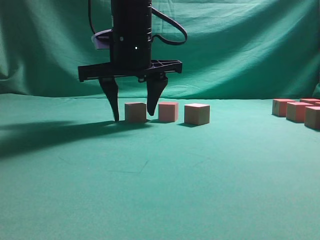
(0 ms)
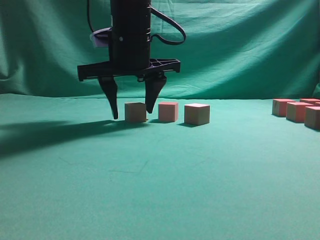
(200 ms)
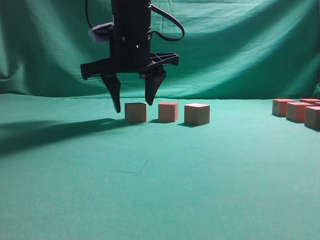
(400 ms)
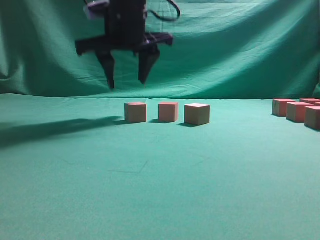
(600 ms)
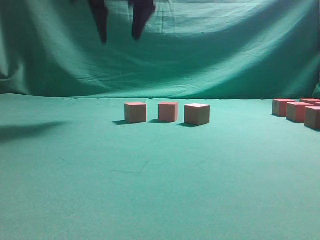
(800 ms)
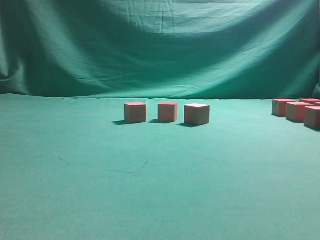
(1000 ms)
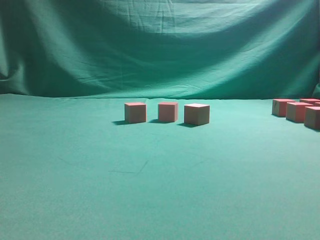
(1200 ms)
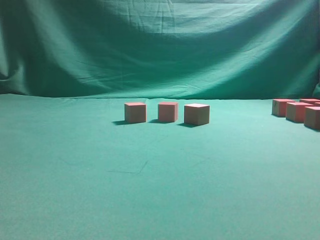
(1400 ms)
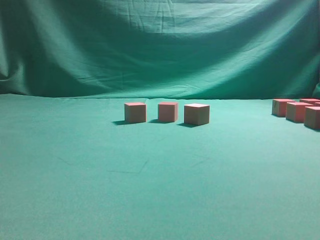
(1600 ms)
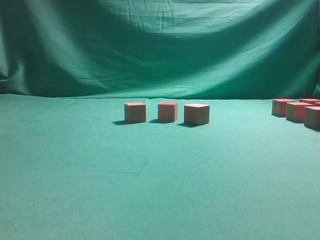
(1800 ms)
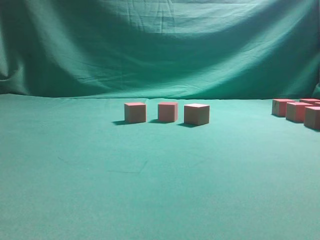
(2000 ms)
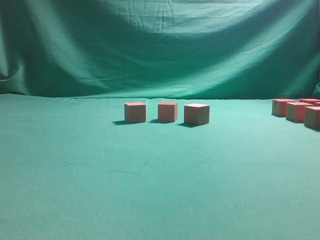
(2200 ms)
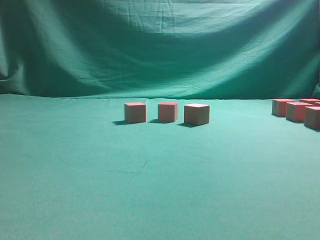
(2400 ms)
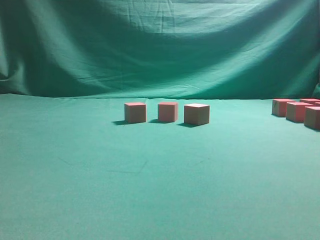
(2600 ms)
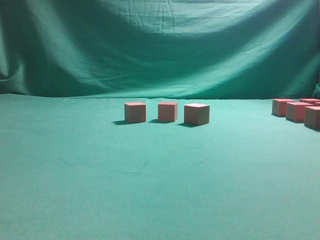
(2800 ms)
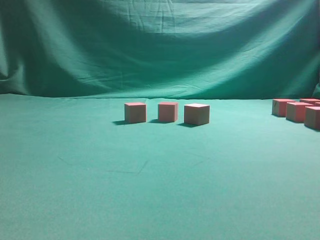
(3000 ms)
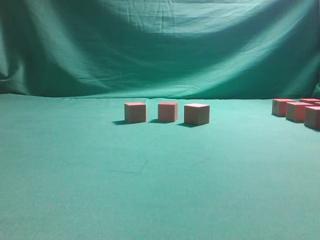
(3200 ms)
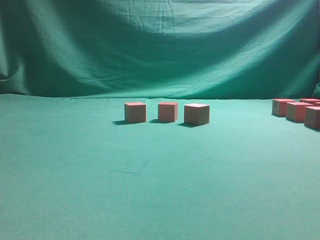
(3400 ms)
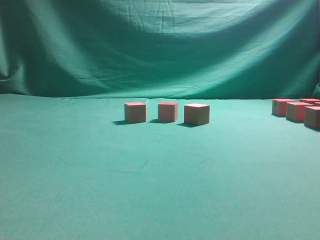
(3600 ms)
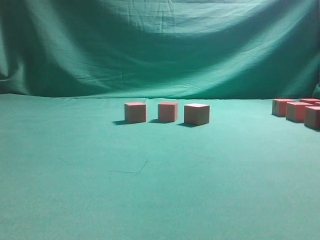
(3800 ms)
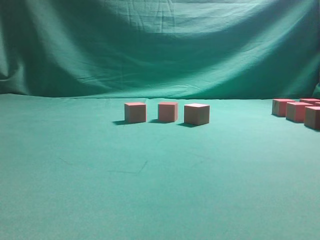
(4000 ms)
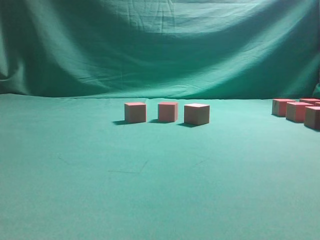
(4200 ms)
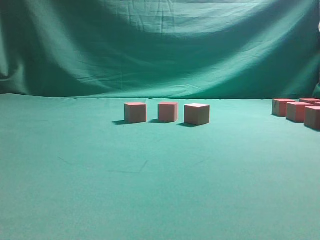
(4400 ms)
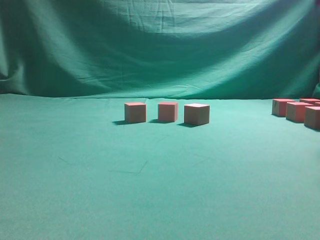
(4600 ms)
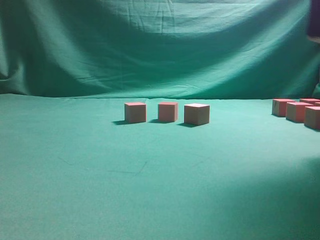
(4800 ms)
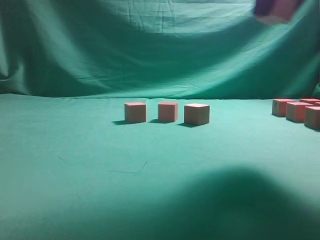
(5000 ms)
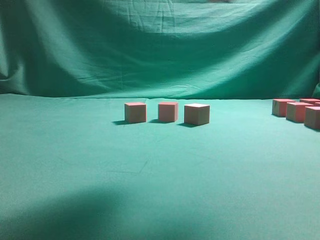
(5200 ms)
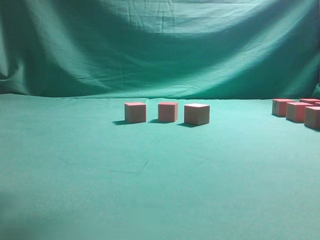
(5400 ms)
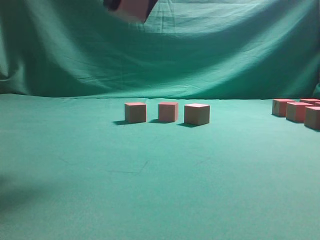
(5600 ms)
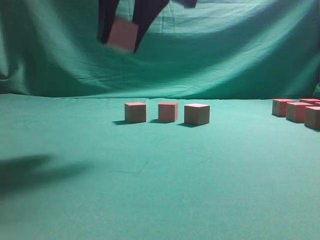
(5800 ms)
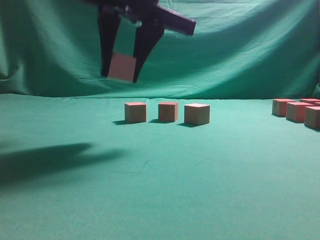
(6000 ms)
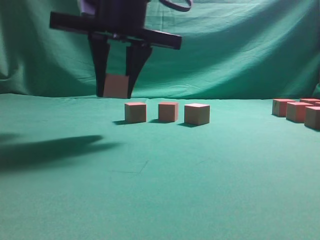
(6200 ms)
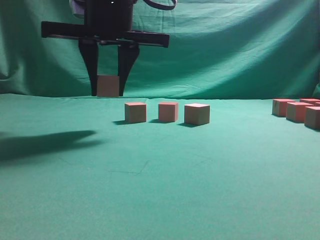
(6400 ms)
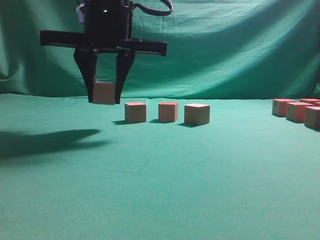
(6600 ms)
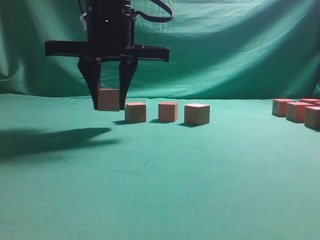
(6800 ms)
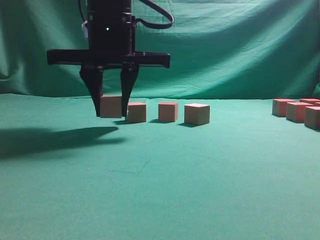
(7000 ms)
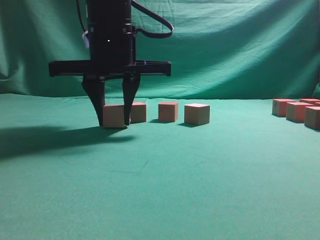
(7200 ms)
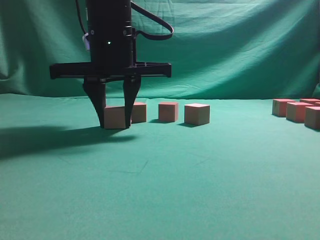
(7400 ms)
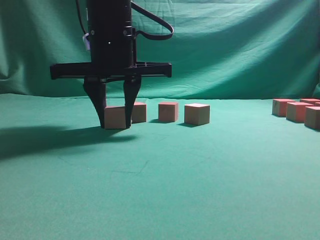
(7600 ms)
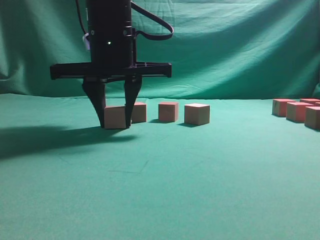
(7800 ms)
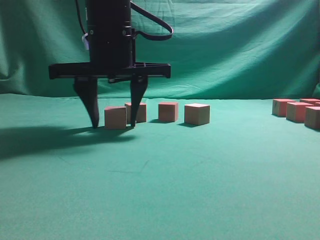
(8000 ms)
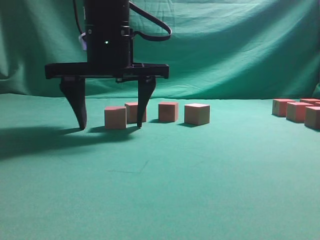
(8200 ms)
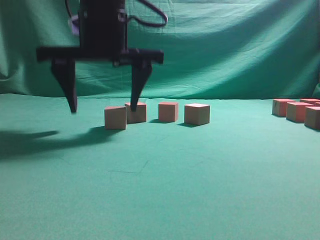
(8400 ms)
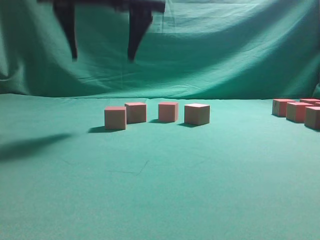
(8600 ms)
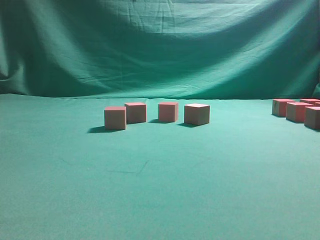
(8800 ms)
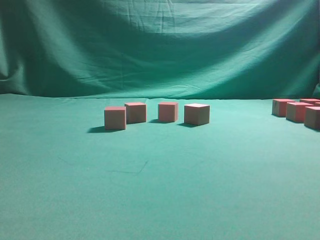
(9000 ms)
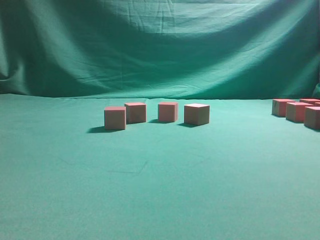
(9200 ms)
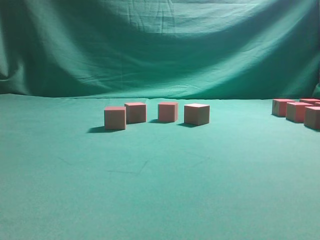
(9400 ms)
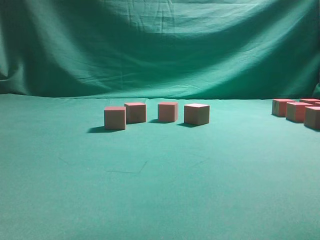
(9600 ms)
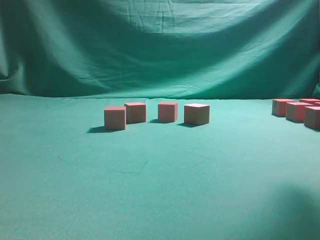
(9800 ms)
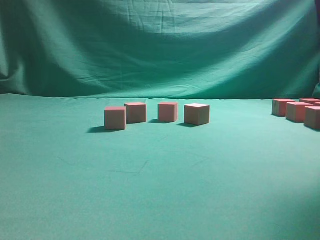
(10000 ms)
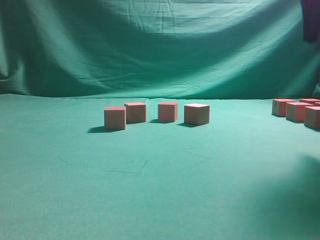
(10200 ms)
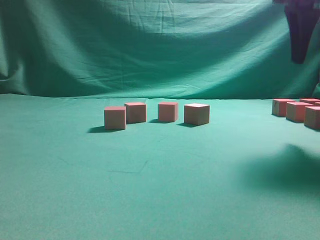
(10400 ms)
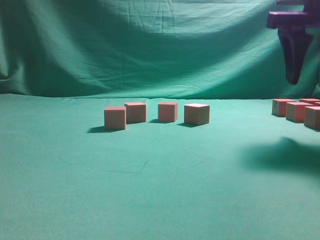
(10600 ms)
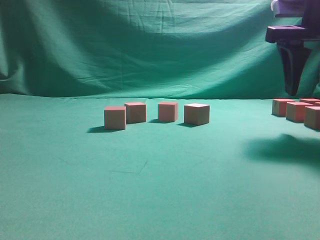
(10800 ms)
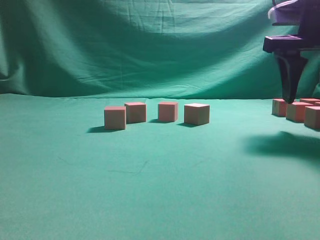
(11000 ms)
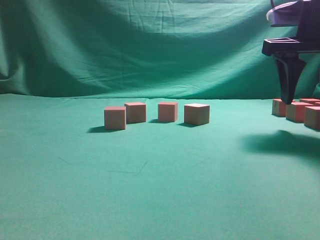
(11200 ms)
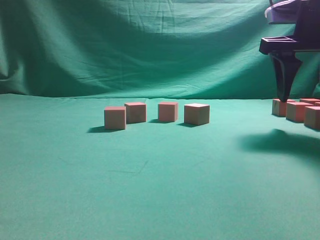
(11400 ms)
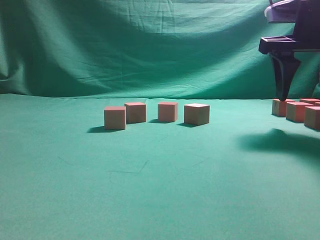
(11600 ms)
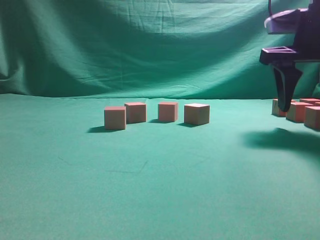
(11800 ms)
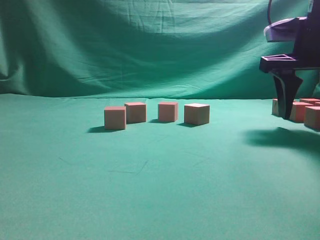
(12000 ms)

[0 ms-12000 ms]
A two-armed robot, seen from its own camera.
Task of the whole recording: pick up the multiple cubes in two columns one by one and place them in another position on the table.
Step, 4600 ms to 8600 ms: Place the block at the correct position to assemble the letter S.
0 ms to 1600 ms: The right gripper travels upward, to the right and backward by roughly 40 cm.
4400 ms to 6000 ms: The right gripper shifts about 30 cm to the left.
6000 ms to 7600 ms: The right gripper goes some 5 cm downward.
7600 ms to 9000 ms: The right gripper moves upward, approximately 25 cm, and opens up.
9000 ms to 10400 ms: The right gripper heads to the right and downward, covering roughly 30 cm.
10400 ms to 12000 ms: The right gripper goes about 10 cm downward.

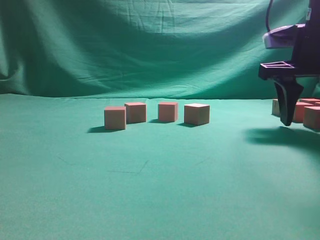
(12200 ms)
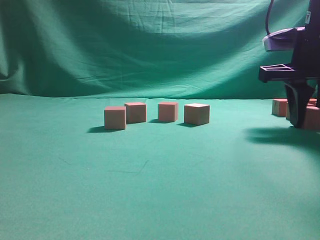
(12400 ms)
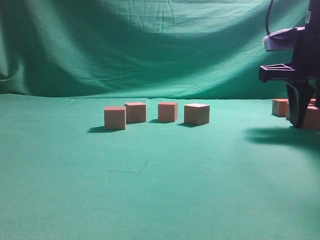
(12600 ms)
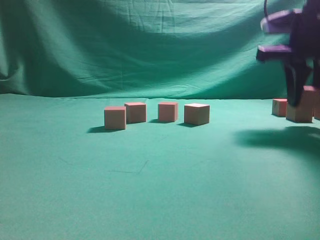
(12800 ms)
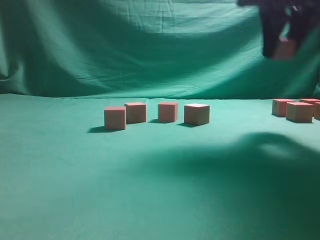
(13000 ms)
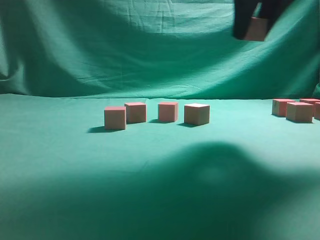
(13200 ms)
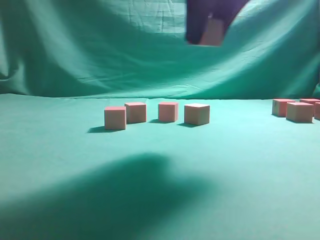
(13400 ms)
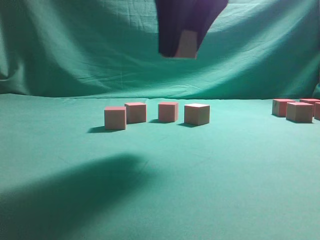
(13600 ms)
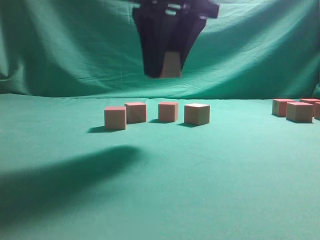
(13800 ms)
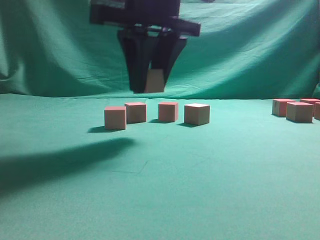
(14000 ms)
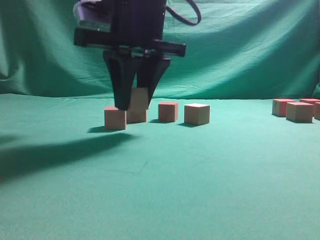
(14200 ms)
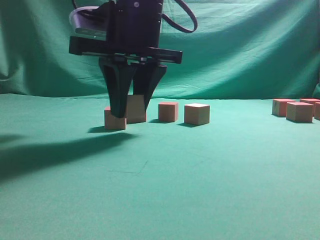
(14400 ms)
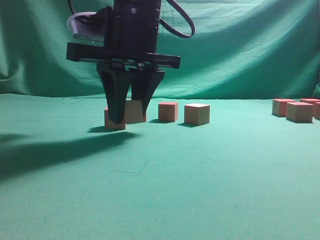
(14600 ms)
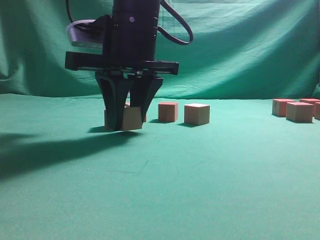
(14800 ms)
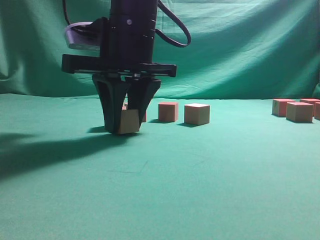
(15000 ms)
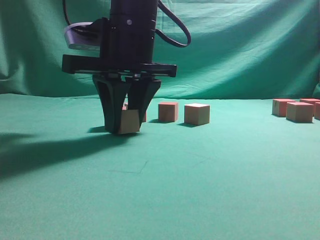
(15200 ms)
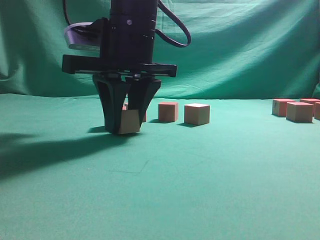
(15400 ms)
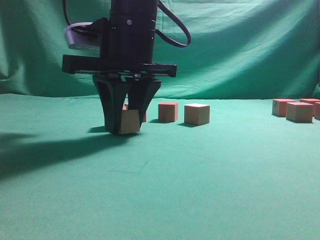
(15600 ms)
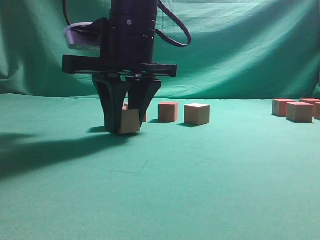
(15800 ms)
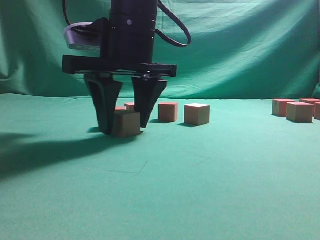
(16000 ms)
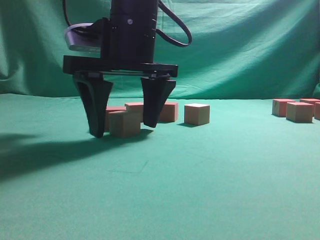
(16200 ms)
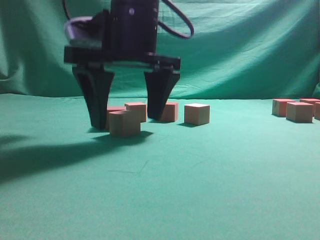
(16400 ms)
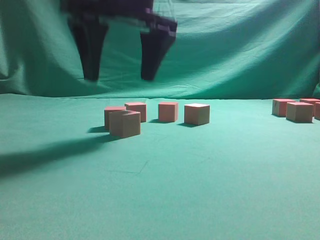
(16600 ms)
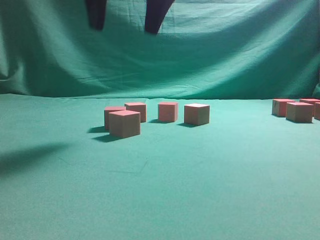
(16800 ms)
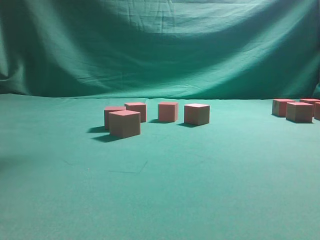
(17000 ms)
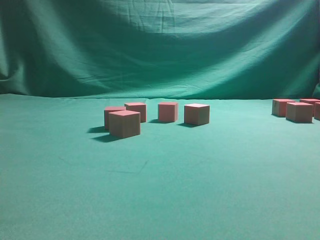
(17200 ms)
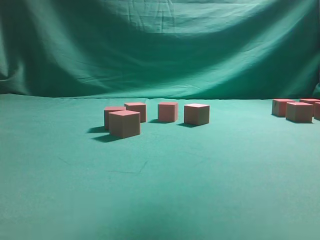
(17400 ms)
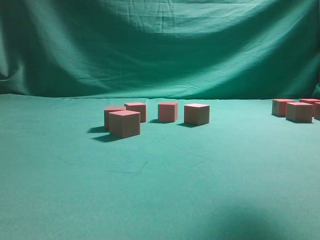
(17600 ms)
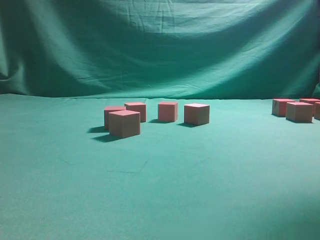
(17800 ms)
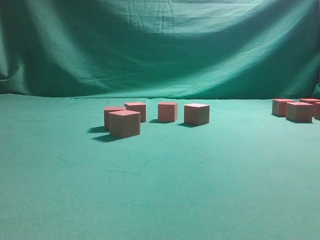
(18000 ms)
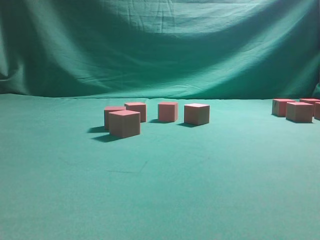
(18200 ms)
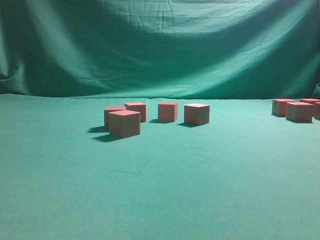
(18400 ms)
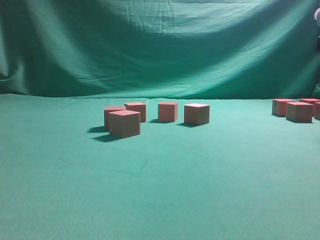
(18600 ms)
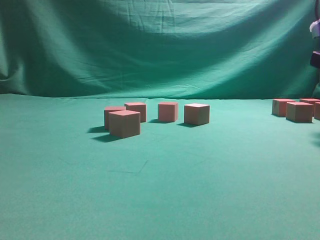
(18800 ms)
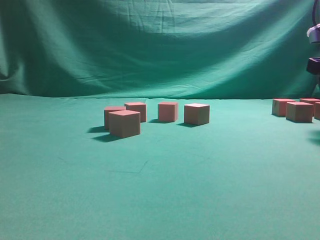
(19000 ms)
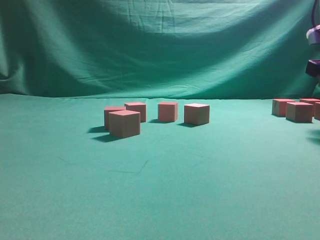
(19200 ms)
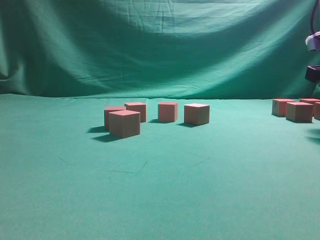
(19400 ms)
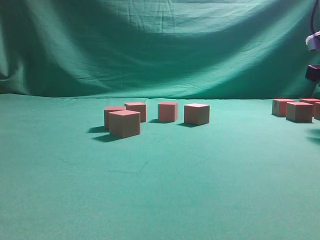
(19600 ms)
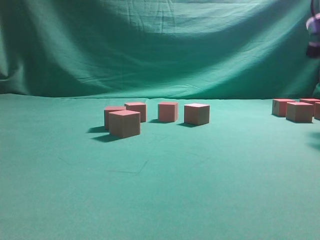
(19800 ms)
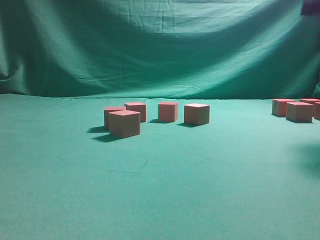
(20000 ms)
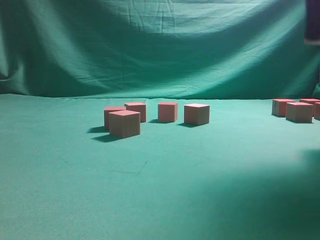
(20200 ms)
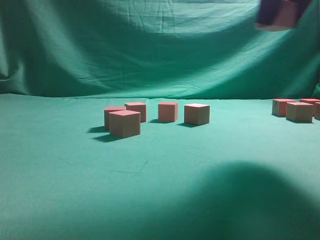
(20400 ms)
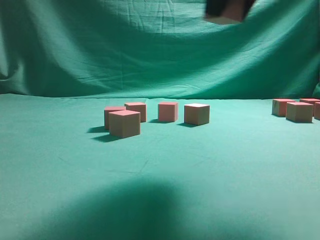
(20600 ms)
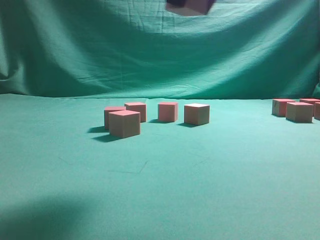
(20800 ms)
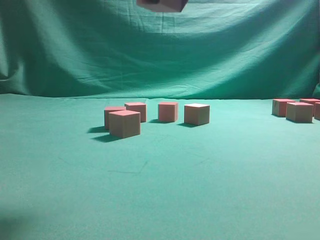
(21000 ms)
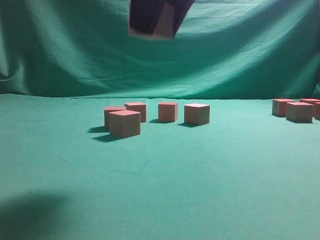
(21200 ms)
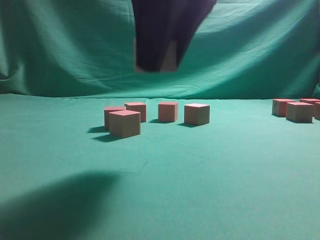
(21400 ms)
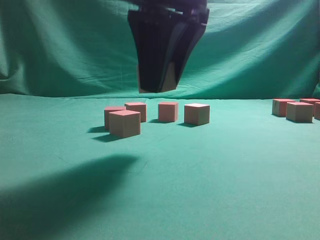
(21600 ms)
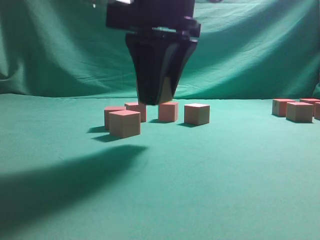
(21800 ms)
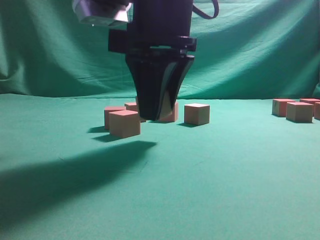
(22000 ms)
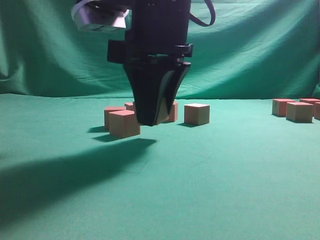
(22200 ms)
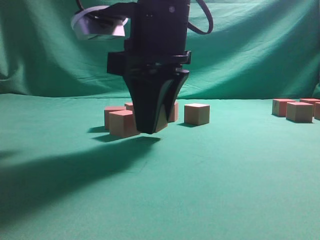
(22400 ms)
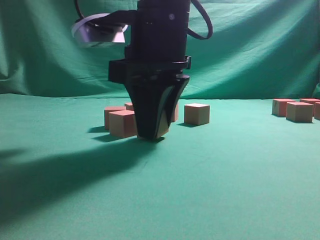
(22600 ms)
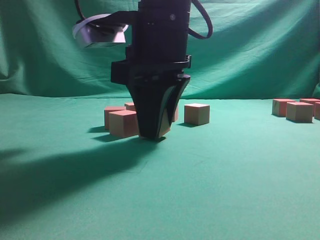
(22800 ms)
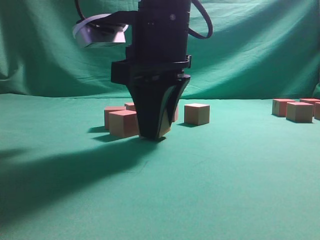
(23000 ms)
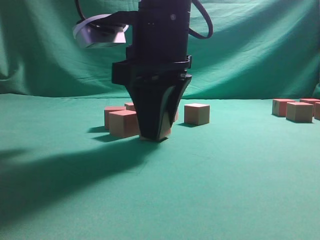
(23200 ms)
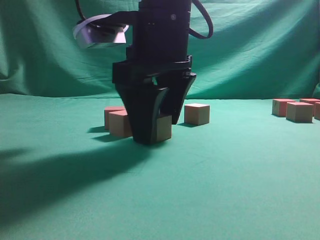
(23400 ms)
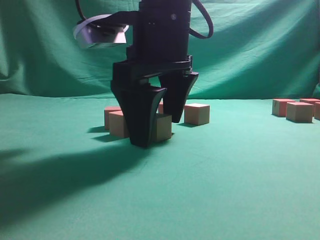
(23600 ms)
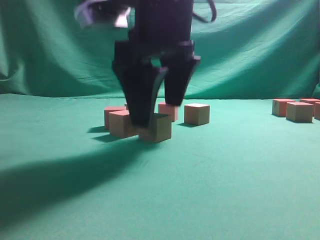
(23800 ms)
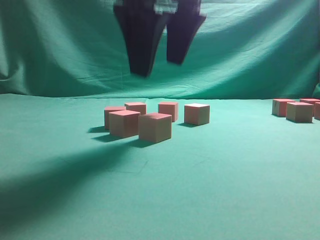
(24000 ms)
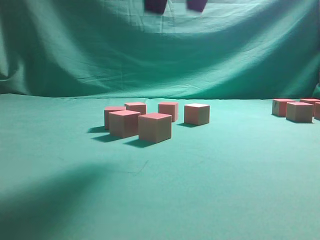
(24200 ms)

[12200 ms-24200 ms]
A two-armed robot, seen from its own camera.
Task of the whole recording: pick up the multiple cubes in two columns one by one and place them in another position on the table.
Step, 13000 ms to 16600 ms: Place the block at the correct position to assemble the letter S.
Step, 16800 ms to 19800 ms: Pick up the block on the table.
Step, 20200 ms to 24000 ms: Place the block at the correct position to assemble the letter S.
12200 ms to 13800 ms: The right gripper moves to the left, approximately 20 cm, and closes.
13800 ms to 15200 ms: The right gripper moves downward and to the left, about 10 cm.
15200 ms to 16600 ms: The right gripper moves upward, about 5 cm, and opens its fingers.
16600 ms to 18200 ms: The right gripper shifts approximately 30 cm to the right.
18200 ms to 19800 ms: The right gripper goes approximately 10 cm downward and forward, and closes.
19800 ms to 21200 ms: The right gripper goes roughly 30 cm to the left and backward.
21200 ms to 22600 ms: The right gripper heads downward and forward, covering some 15 cm.
22600 ms to 24200 ms: The right gripper travels upward by about 10 cm, and opens up.
